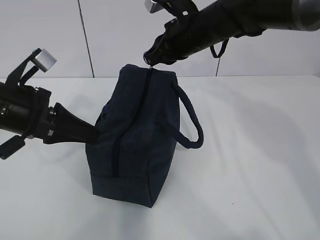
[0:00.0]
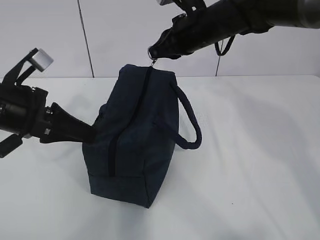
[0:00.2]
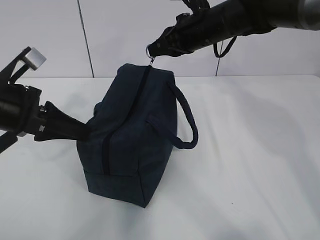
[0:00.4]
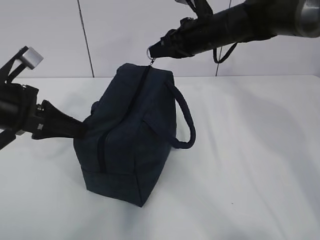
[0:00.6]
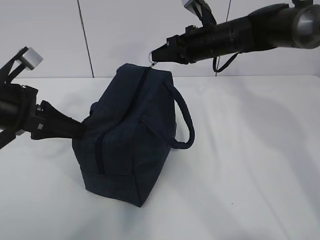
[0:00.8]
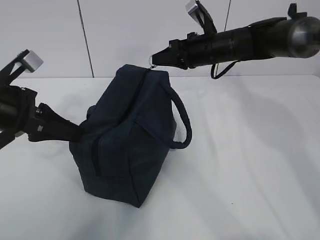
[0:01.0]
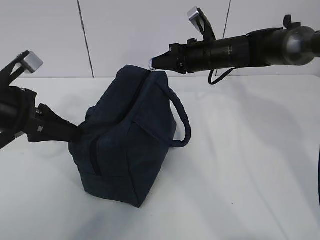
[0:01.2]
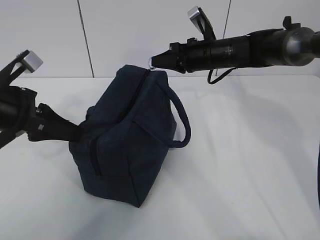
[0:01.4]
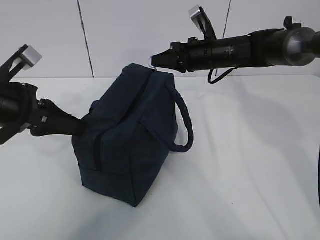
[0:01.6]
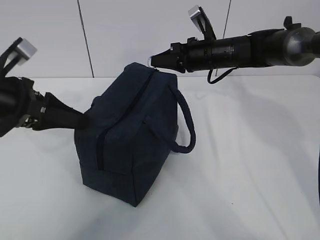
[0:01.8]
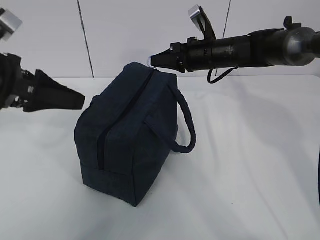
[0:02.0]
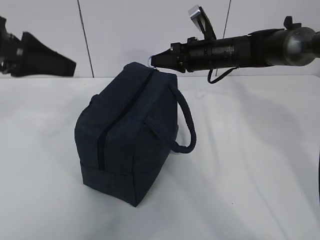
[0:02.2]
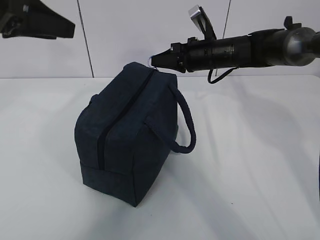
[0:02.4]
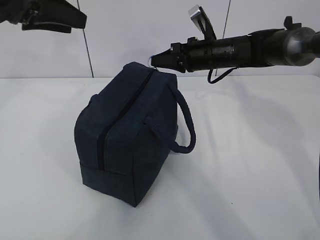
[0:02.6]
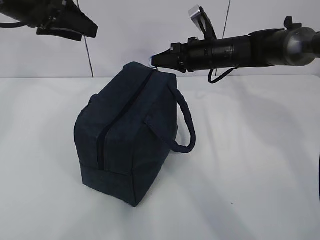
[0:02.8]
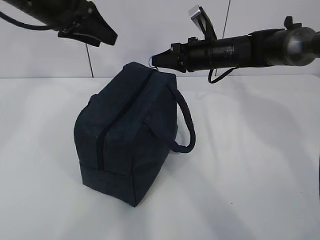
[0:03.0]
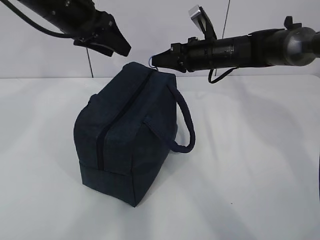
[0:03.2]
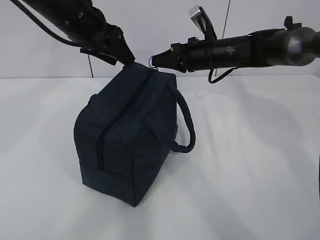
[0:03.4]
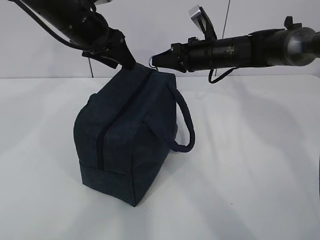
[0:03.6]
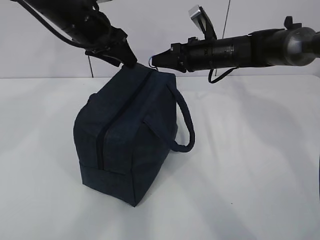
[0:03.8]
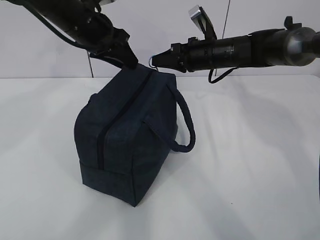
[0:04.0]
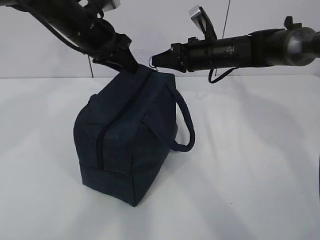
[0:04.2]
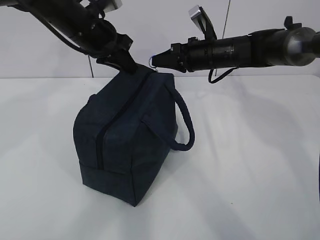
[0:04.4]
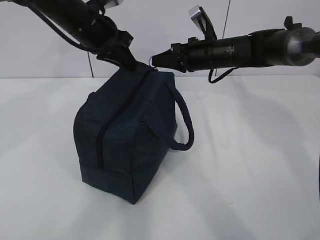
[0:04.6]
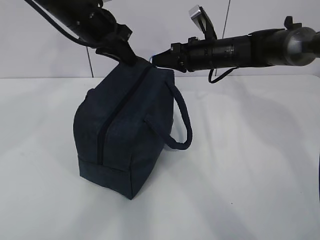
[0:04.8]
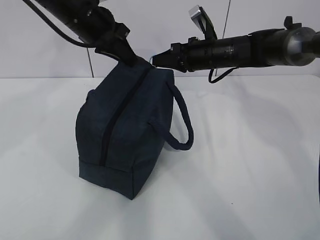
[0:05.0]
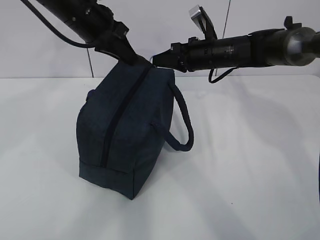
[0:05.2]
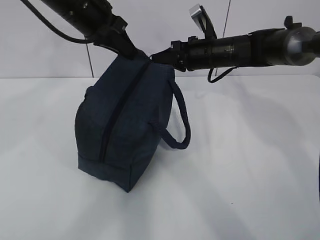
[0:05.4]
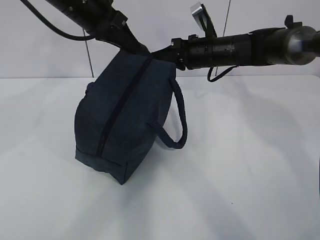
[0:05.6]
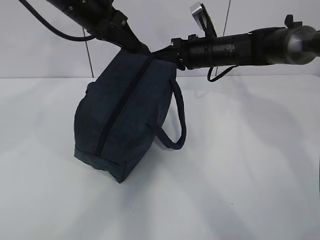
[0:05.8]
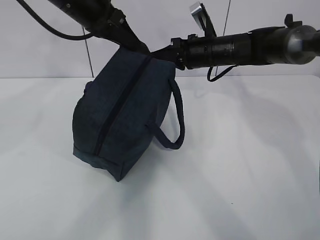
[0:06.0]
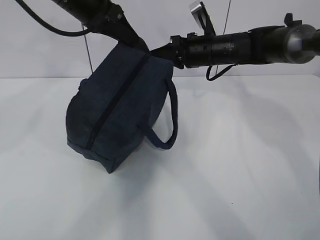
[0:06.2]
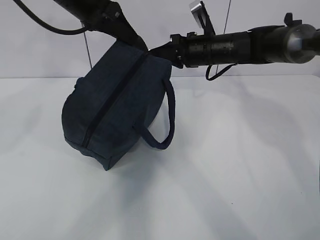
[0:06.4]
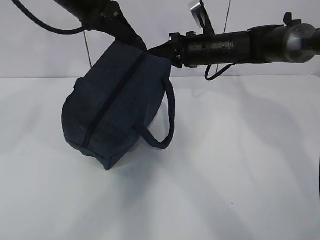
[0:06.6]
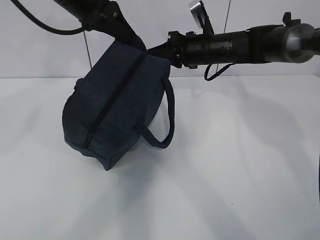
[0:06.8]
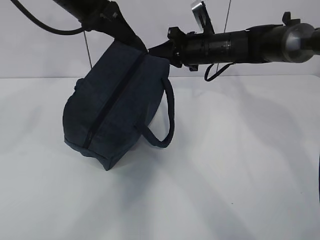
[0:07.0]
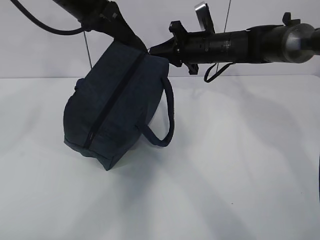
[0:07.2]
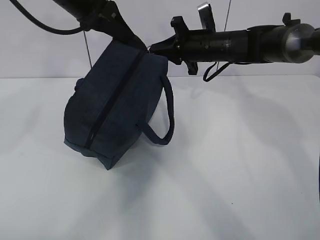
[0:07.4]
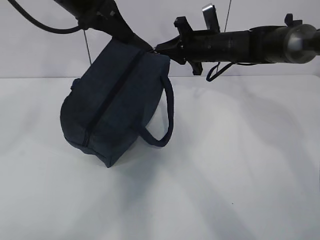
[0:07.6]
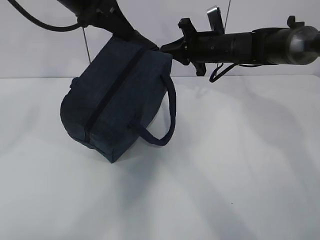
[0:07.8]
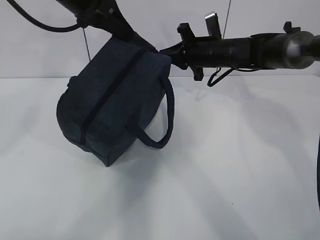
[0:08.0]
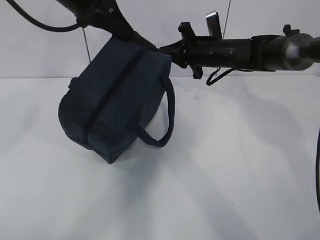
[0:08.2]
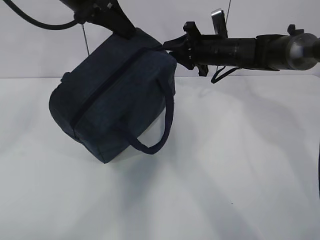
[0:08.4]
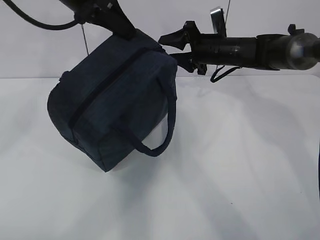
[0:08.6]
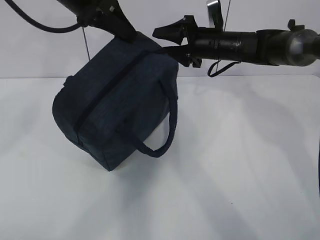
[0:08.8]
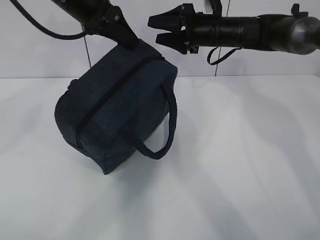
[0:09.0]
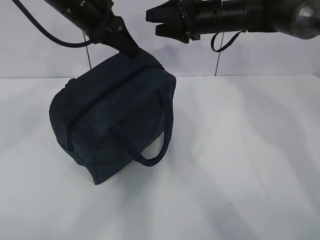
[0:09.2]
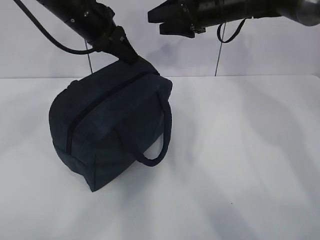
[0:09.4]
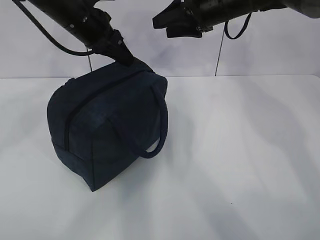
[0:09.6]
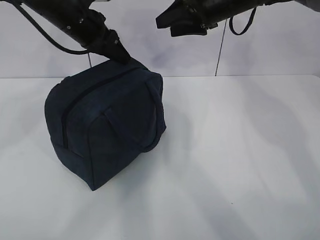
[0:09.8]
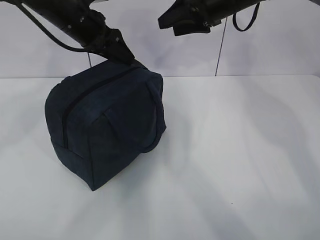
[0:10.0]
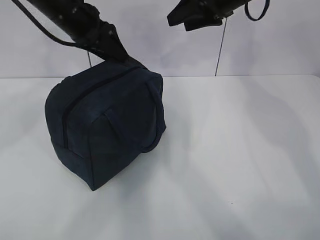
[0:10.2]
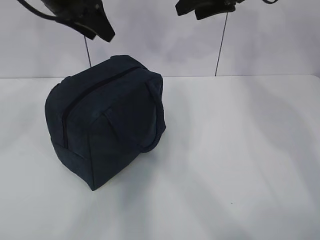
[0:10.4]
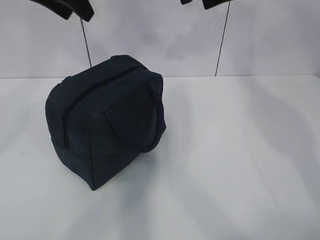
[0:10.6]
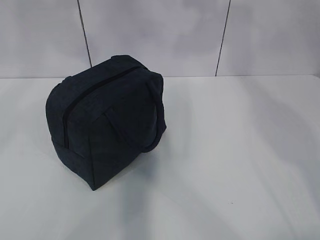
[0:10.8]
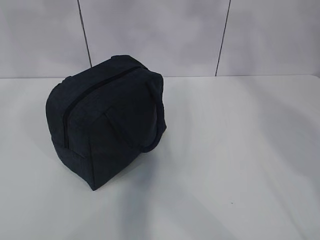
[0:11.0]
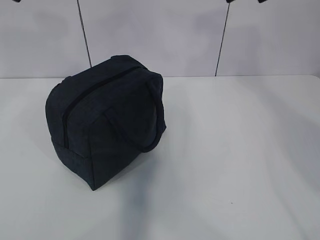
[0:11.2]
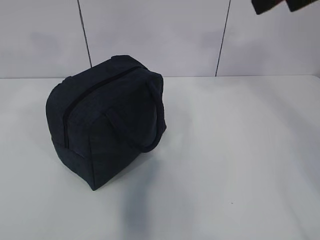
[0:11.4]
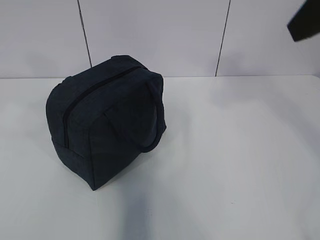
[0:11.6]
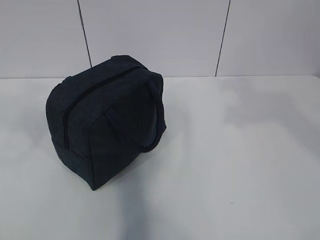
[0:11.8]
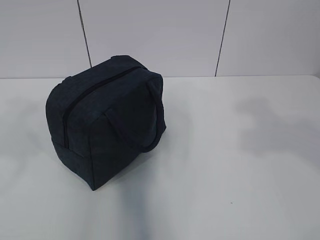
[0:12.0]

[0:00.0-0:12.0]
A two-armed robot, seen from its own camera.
Step, 0:00.0 to 0:10.2: zip up the zipper to close the bag.
0:00.0 to 0:01.6: The right gripper heads downward, forward and to the right, covering roughly 10 cm.
0:01.6 to 0:03.0: The left gripper is displaced forward, upward and to the right by roughly 15 cm, and opens its fingers.
0:03.0 to 0:04.4: The left gripper is displaced downward by roughly 5 cm, and closes up.
0:04.4 to 0:06.0: The left gripper shifts approximately 5 cm upward.
0:07.6 to 0:09.0: The right gripper opens its fingers.
0:09.0 to 0:10.4: The right gripper moves upward, about 10 cm. The left gripper opens its fingers.
0:10.4 to 0:12.0: Both grippers travel together backward, roughly 30 cm.

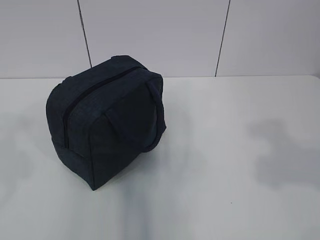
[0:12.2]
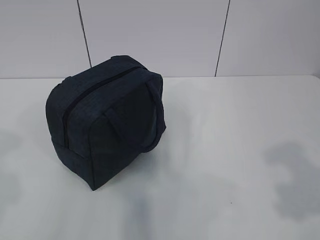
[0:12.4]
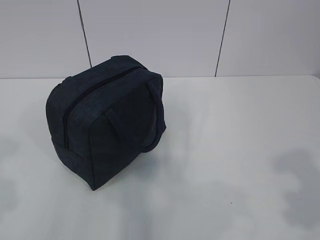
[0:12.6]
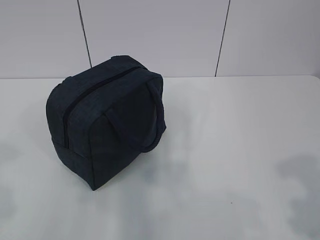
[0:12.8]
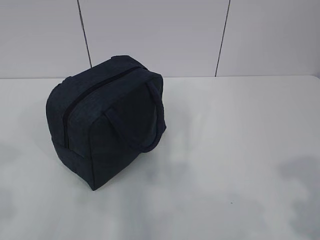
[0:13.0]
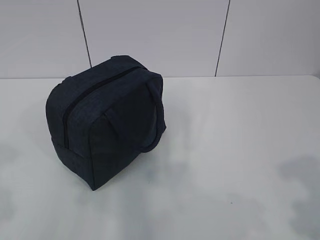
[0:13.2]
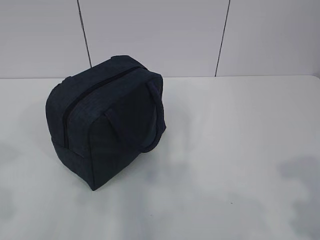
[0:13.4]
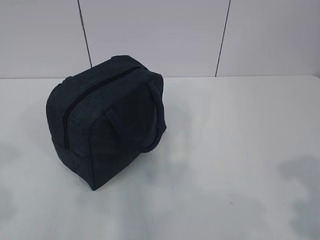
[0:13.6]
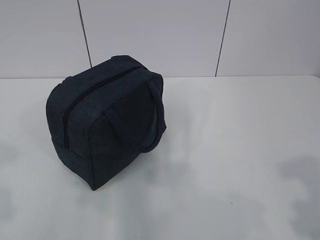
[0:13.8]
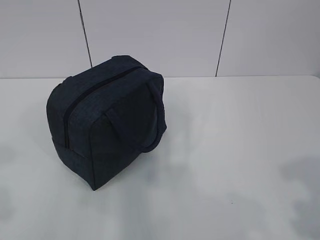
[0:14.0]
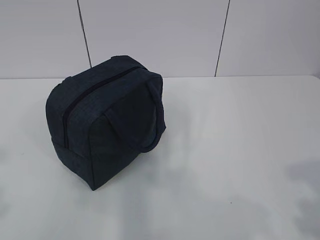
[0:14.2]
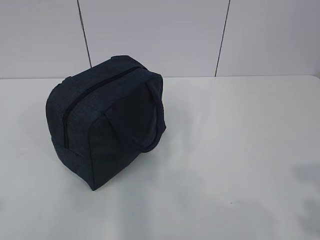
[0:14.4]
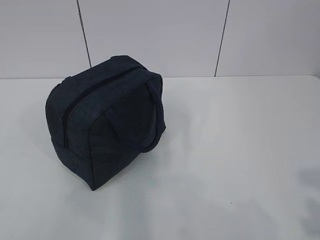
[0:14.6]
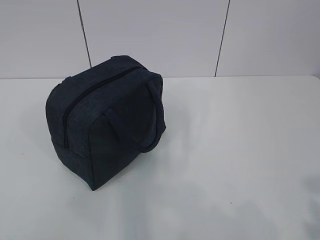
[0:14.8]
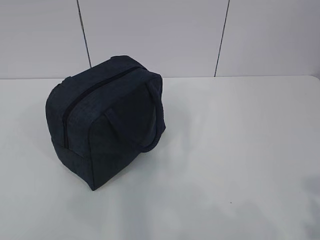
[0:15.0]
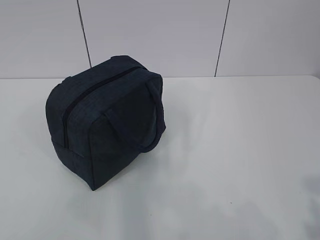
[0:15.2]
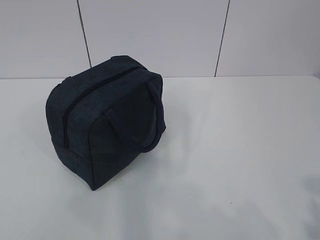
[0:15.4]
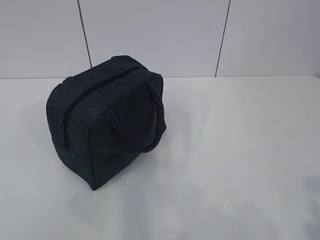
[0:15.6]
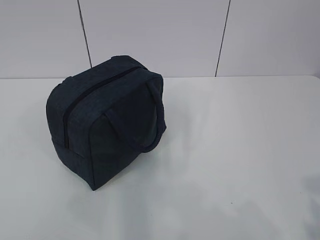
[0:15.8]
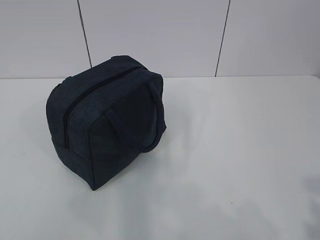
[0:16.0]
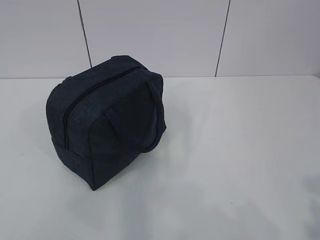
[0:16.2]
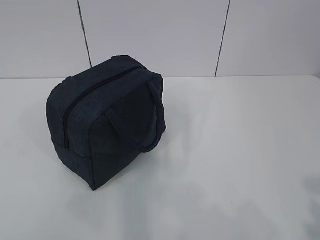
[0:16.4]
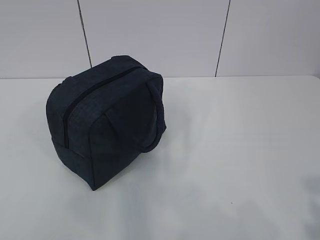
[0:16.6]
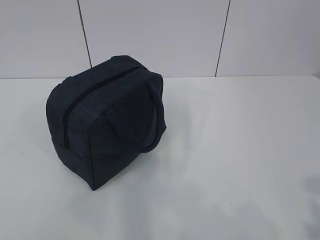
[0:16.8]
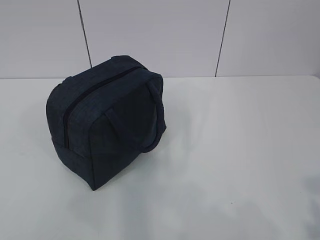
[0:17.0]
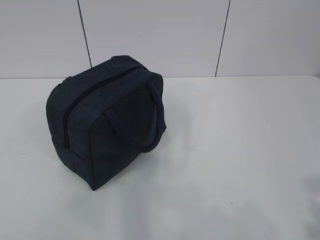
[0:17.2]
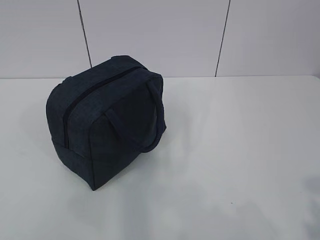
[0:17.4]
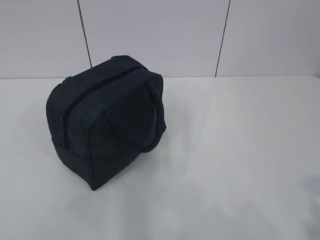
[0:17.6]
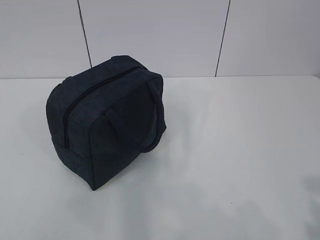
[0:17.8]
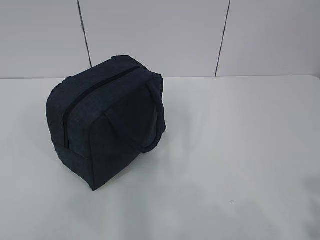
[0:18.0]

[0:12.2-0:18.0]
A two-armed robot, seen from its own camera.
0:12.2 to 0:13.6: Both grippers move downward, about 5 cm.
0:13.6 to 0:15.0: The left gripper heads backward, covering approximately 10 cm.
0:15.0 to 0:18.0: The two grippers keep their place.

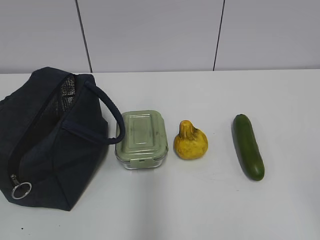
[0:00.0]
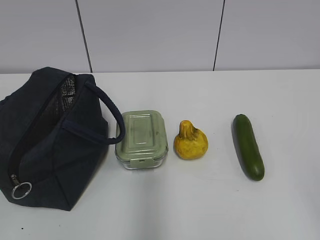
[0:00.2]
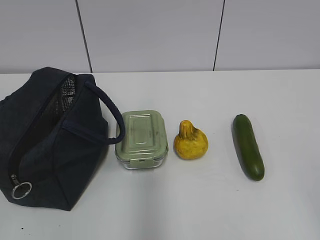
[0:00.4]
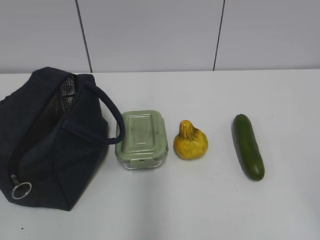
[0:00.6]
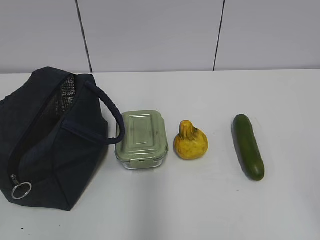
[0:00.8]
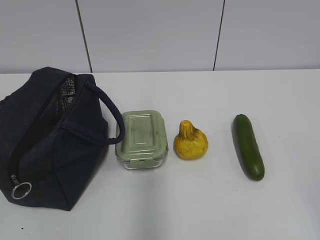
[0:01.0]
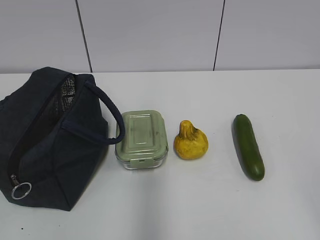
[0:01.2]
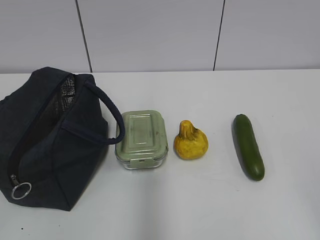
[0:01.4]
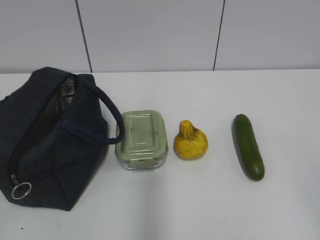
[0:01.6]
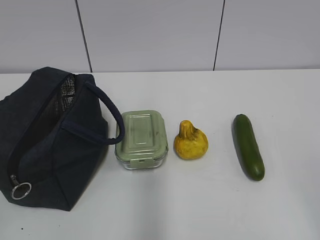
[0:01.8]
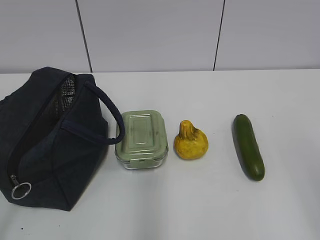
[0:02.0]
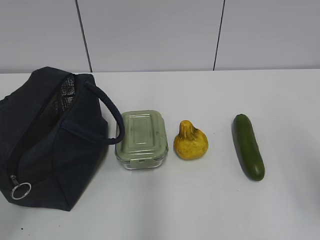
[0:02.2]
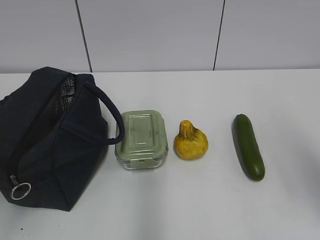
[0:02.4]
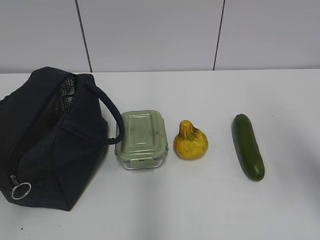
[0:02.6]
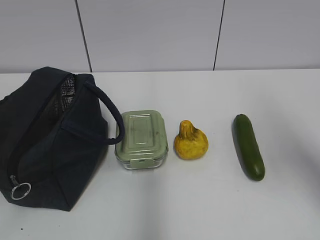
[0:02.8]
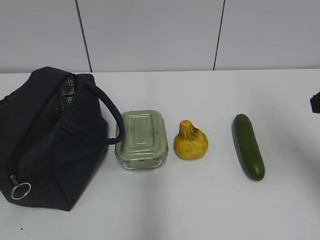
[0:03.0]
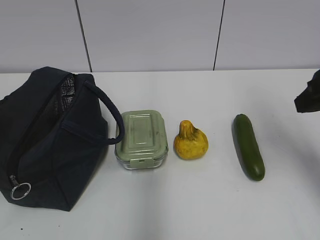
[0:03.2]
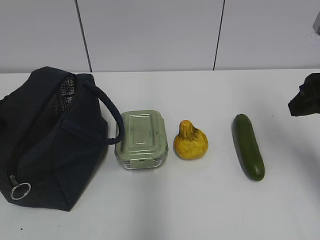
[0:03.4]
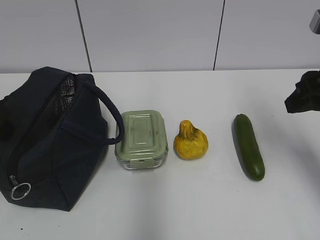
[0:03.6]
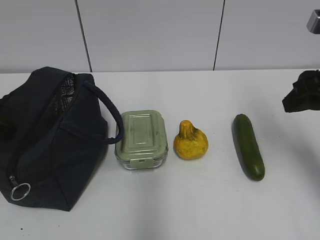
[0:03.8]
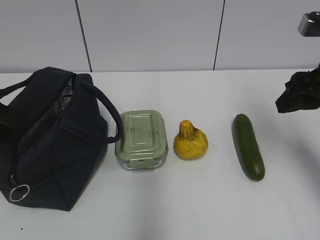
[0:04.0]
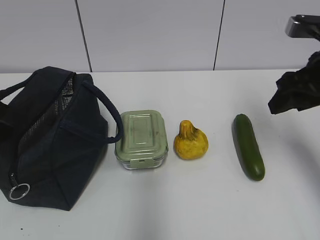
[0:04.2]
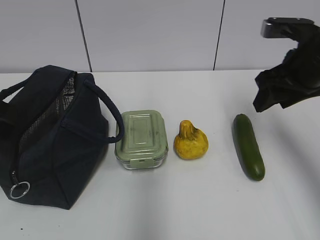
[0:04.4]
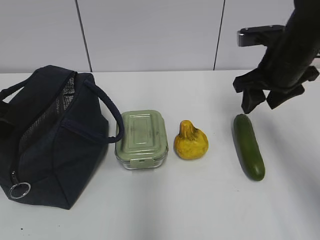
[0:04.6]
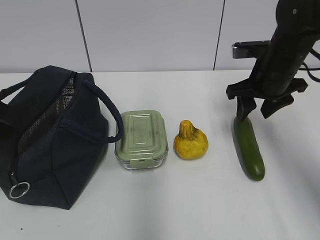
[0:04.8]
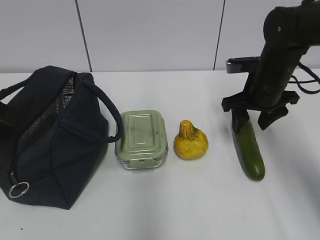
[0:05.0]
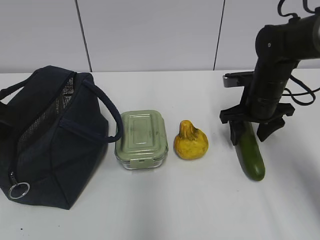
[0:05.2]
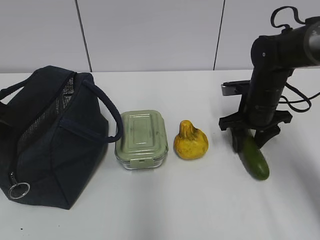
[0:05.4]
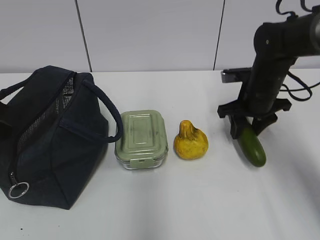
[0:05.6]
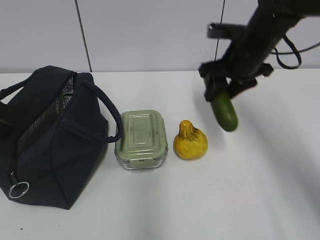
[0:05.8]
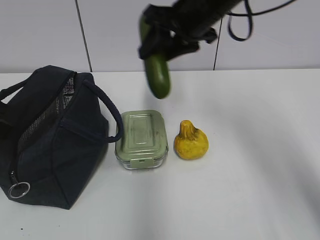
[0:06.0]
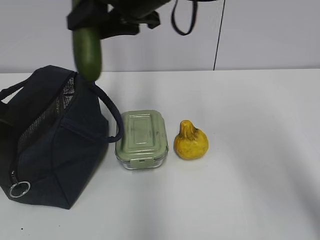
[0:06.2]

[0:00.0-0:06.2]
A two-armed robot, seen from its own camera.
Step, 0:00.0 to 0:05.4: Grab the cucumber with your right hand.
0:01.6 to 0:03.2: The right gripper travels forward by about 25 cm.
0:03.2 to 0:04.6: The left gripper shifts by some 5 cm, and closes up. The right gripper goes roughly 10 cm forward.
0:04.6 to 0:06.2: The right gripper goes roughly 20 cm to the left and upward.
